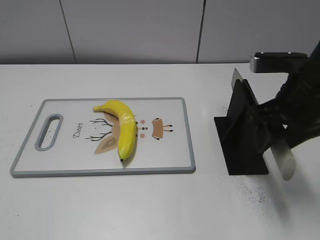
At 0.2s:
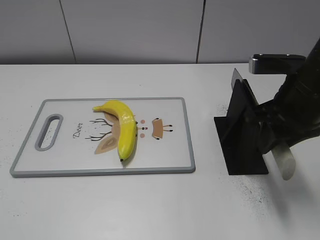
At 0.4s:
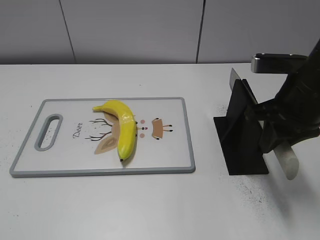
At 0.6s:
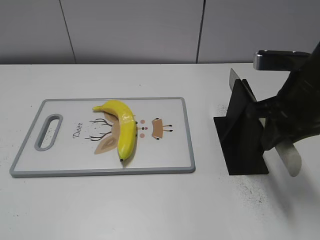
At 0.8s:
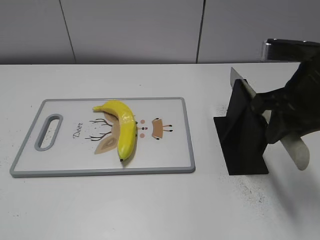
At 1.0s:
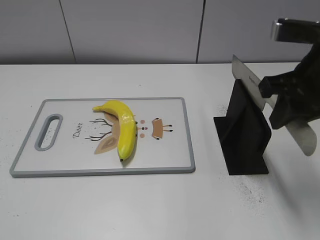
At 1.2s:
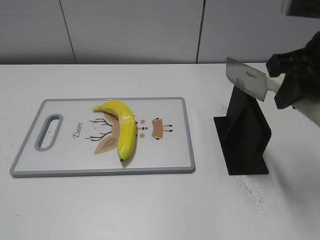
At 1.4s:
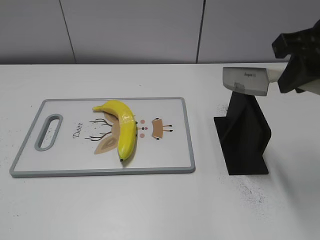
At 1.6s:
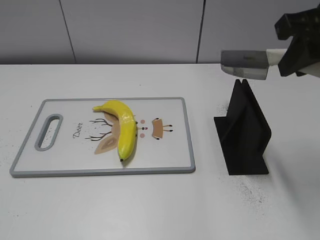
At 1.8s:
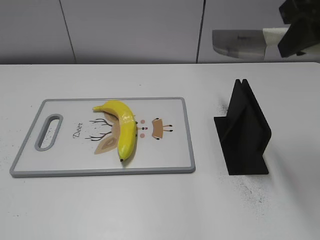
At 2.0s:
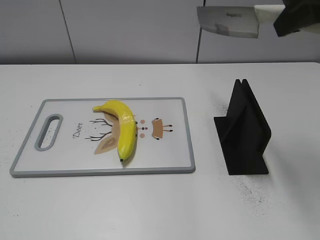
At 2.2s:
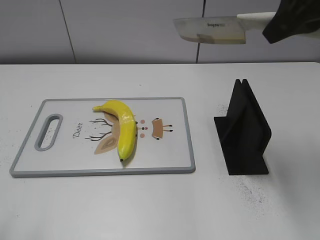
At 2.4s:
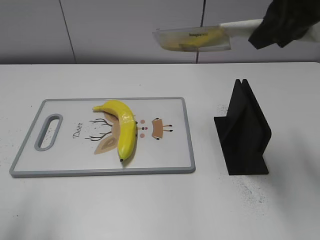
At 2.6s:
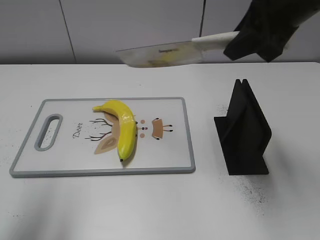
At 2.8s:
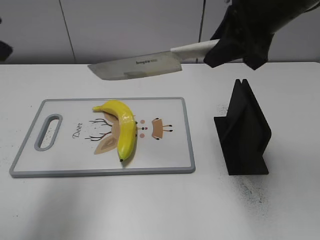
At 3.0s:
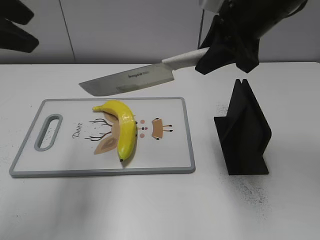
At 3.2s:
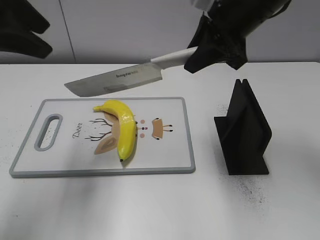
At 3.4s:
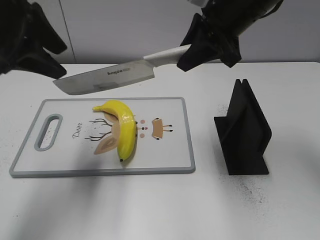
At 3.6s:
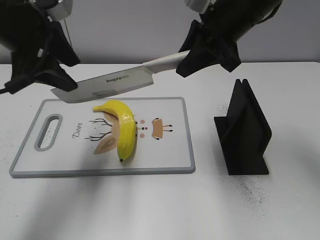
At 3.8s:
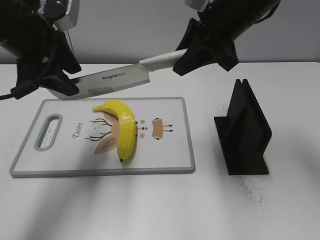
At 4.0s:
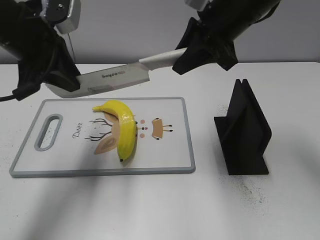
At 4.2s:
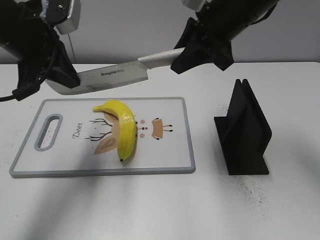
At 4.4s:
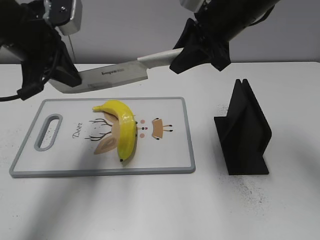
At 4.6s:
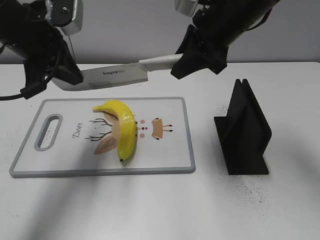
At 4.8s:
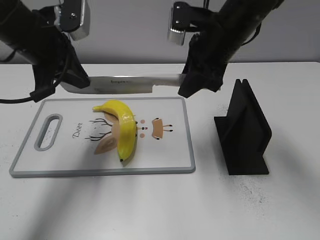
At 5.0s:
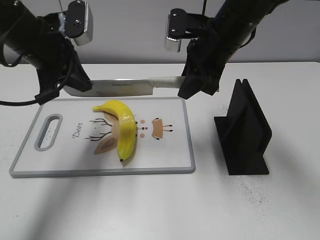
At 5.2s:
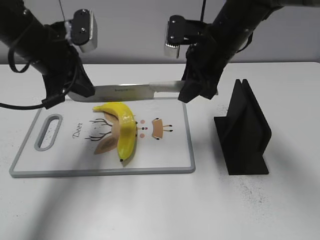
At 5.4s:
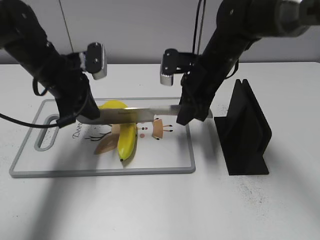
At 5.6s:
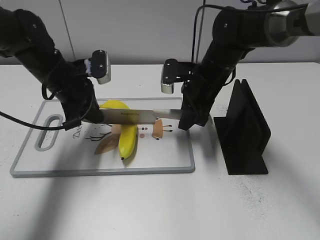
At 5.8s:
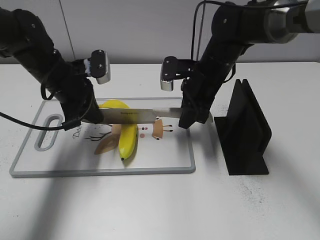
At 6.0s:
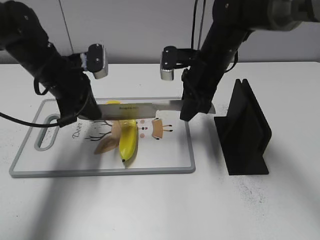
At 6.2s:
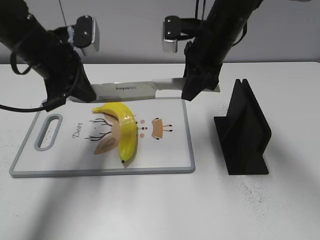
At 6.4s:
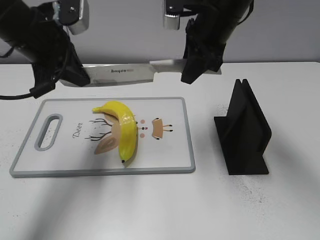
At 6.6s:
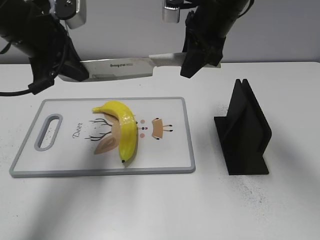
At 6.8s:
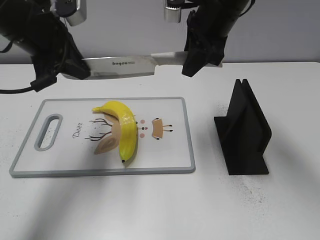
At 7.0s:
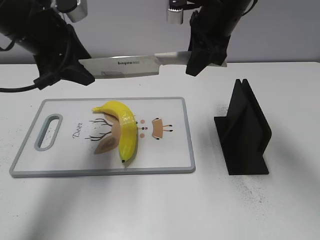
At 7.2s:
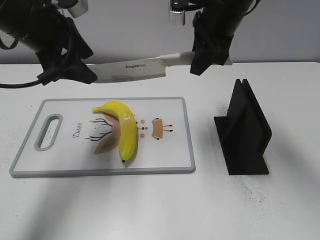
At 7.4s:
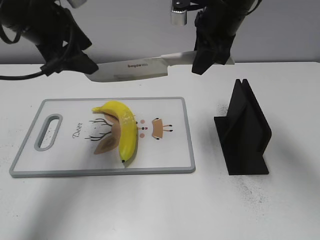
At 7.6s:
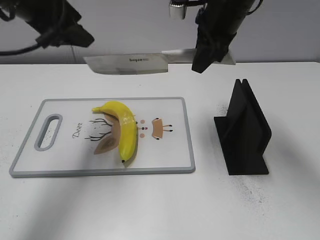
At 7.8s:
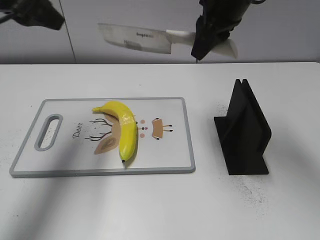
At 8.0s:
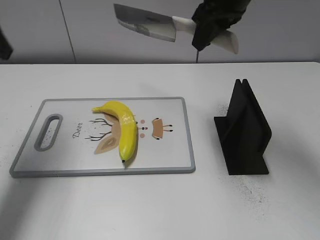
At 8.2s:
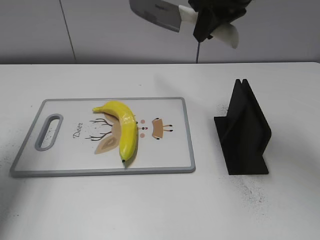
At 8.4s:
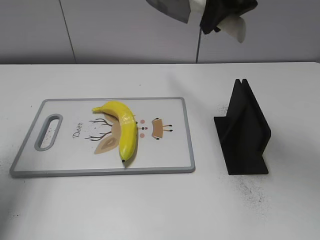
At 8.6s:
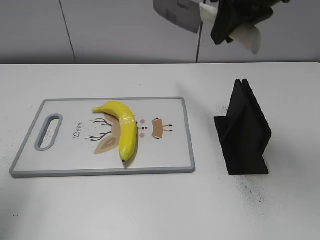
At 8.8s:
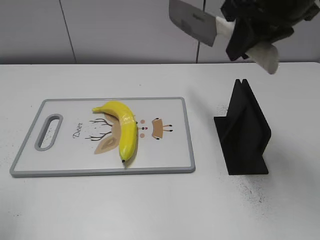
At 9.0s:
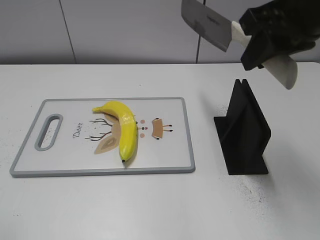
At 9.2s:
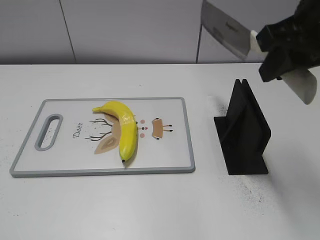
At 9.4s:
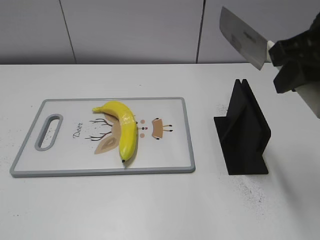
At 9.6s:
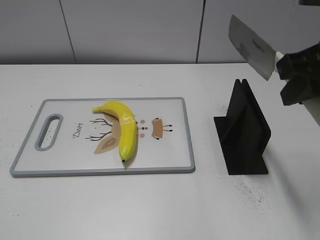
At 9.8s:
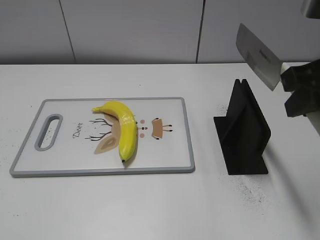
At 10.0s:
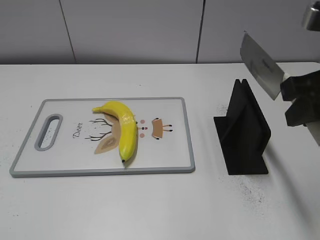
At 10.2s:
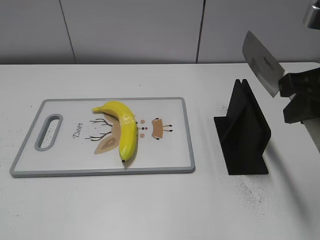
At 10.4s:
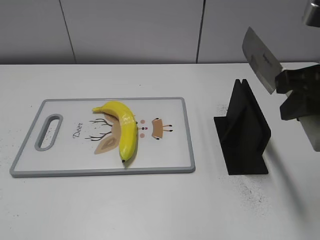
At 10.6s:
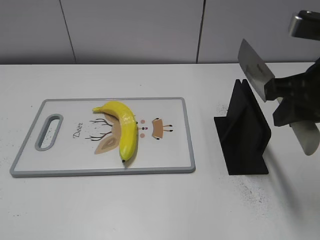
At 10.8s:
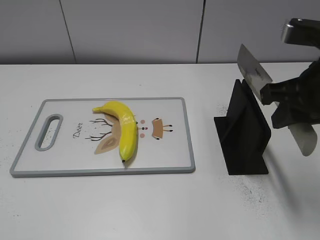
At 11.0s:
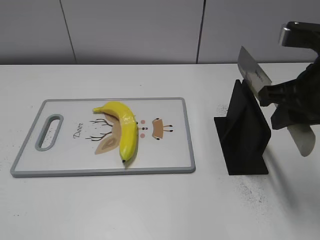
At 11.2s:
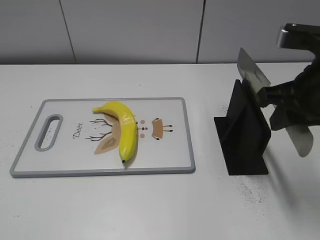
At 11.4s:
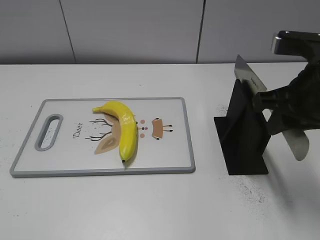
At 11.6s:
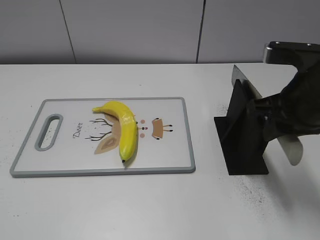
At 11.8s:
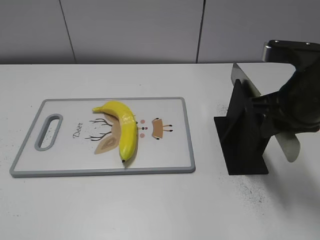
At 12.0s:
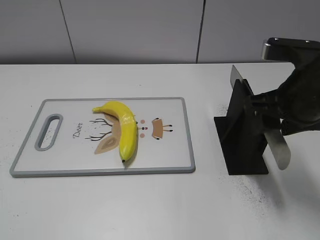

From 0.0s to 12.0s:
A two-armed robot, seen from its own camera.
Task of the whole recording: cut plastic banana.
Step, from 1.4s to 6.0s: Lift the knife with your right hand.
Step, from 6.4s to 7.2s: Cut the banana with your right hand.
Step, from 7.4s to 8.0s: Lift the knife with your right hand.
From 0.0s to 1.6s: The right gripper is displaced upward by some 10 cm, and closes its fingers.
From 1.6s to 3.0s: The left gripper is displaced forward by approximately 25 cm. The right gripper travels forward and to the left by roughly 10 cm.
From 3.0s to 4.4s: The left gripper is displaced downward and forward by some 10 cm, and closes up.
From 4.4s to 6.0s: The grippers both shift downward by about 10 cm.
From 6.0s to 7.6s: Both grippers travel together upward, some 10 cm. The left gripper opens its fingers.
From 7.6s to 9.0s: The right gripper is displaced backward, to the right and upward by some 15 cm. Meanwhile the left gripper heads backward and to the left, covering approximately 25 cm.
From 9.0s to 10.4s: Both grippers travel together backward, some 5 cm.
From 10.4s to 12.0s: The right gripper travels downward by approximately 5 cm, and opens up.

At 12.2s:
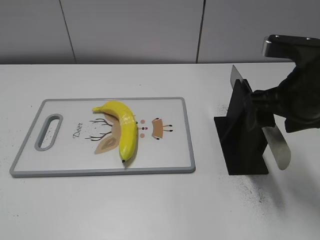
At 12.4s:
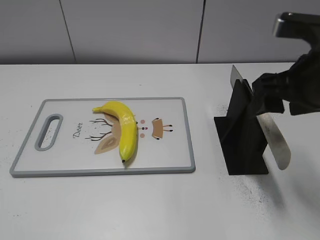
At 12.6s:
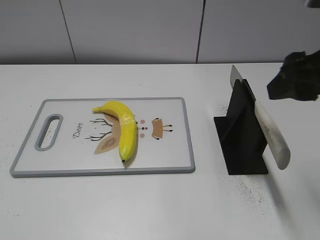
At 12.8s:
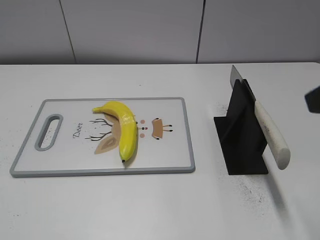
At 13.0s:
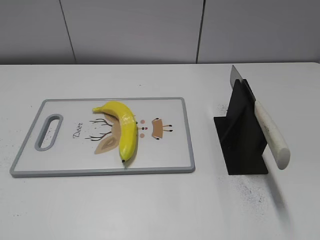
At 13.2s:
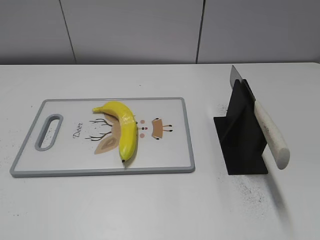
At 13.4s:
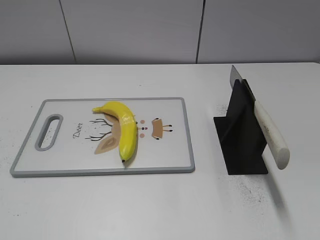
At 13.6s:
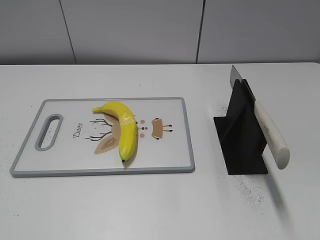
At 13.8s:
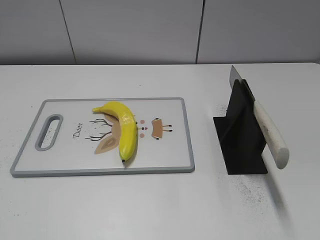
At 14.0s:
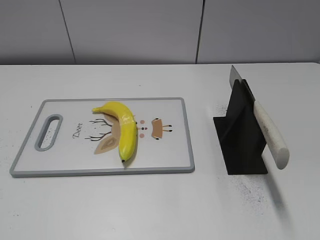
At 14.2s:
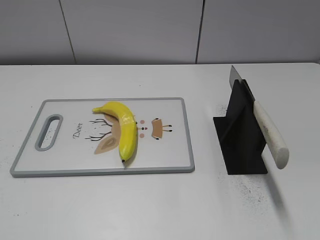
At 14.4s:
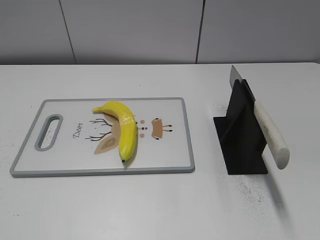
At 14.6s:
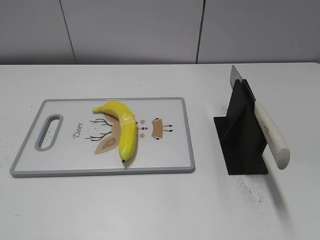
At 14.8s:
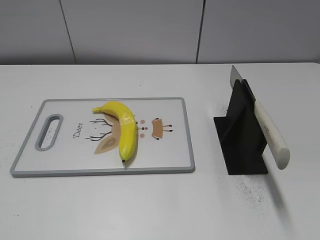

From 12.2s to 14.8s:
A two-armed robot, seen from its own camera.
Task of the whole recording: cut plastic banana.
Step, from 12.2s to 14.8s: Place the knife on the storage rack with your right hand.
From 12.2s to 13.4s: The right gripper is displaced backward and to the right by some 25 cm.
